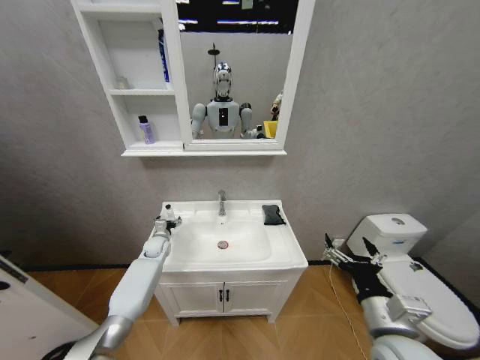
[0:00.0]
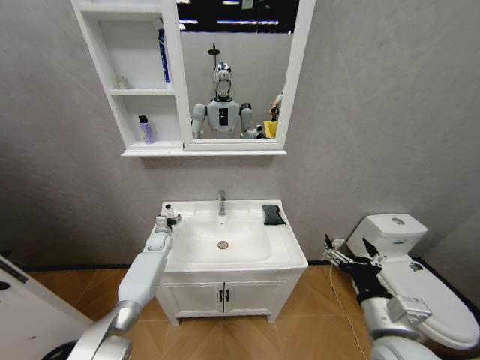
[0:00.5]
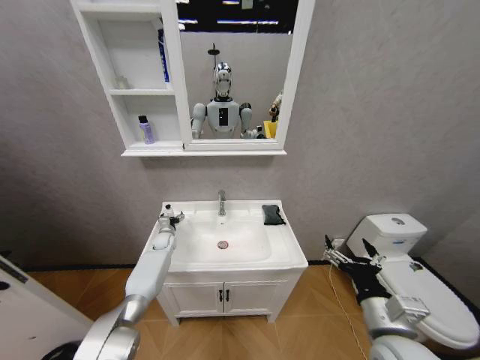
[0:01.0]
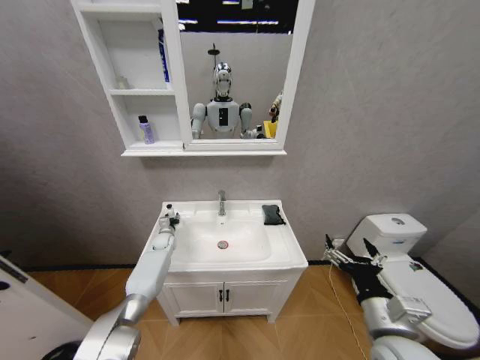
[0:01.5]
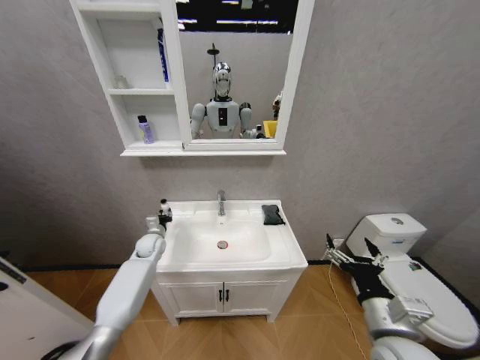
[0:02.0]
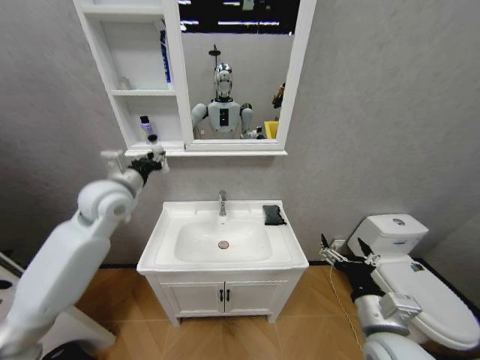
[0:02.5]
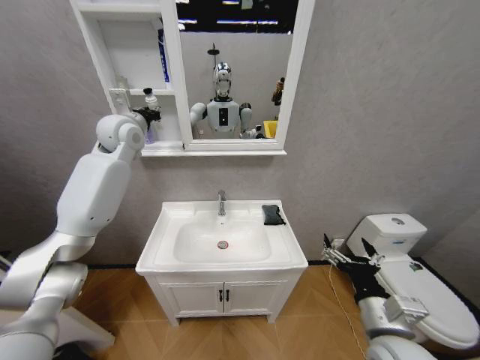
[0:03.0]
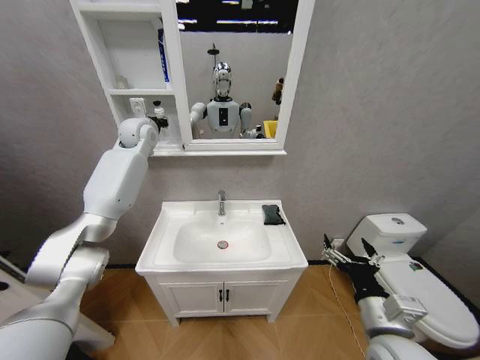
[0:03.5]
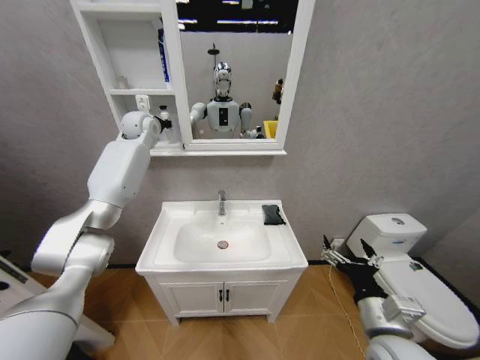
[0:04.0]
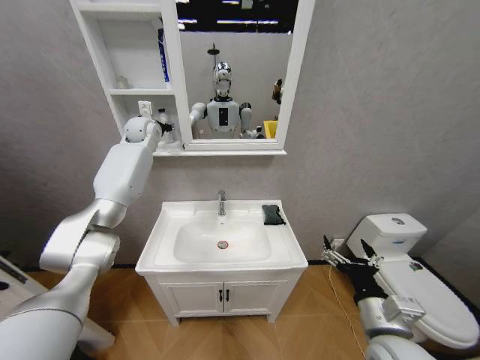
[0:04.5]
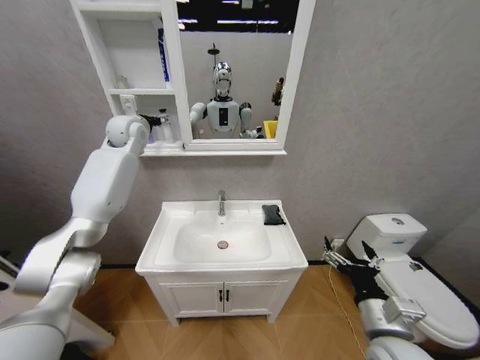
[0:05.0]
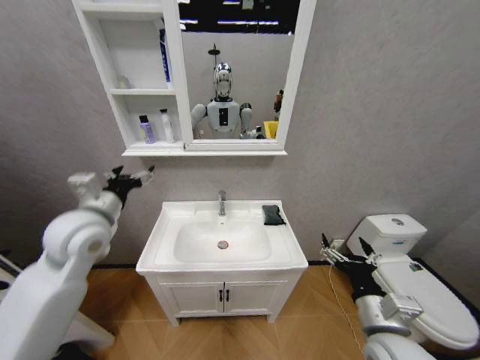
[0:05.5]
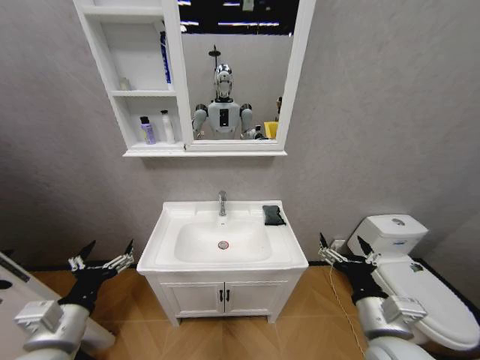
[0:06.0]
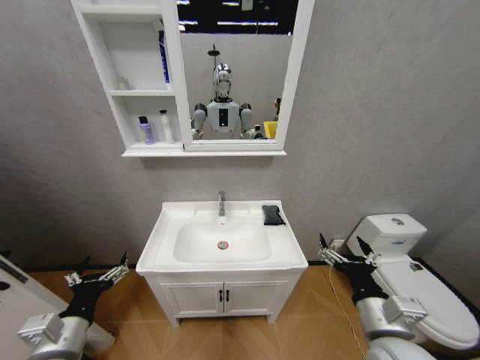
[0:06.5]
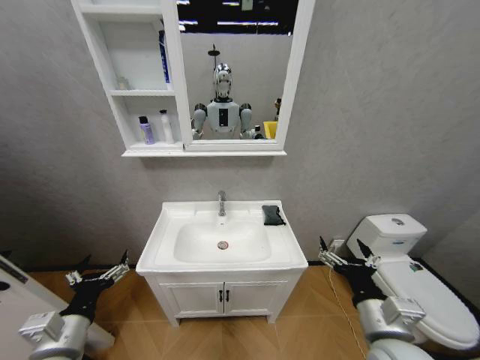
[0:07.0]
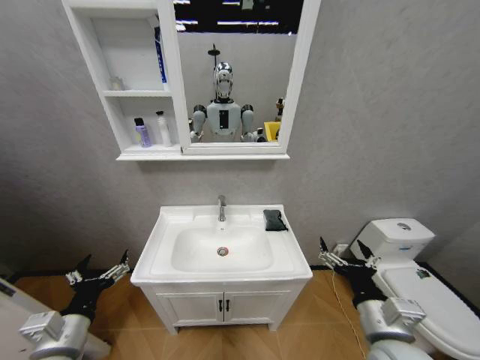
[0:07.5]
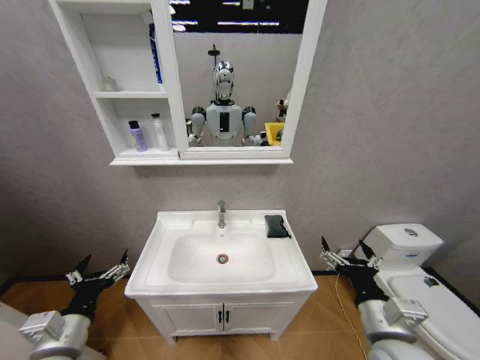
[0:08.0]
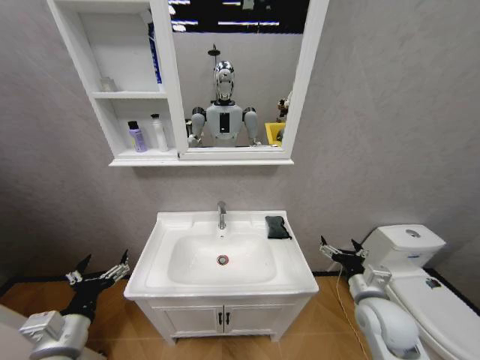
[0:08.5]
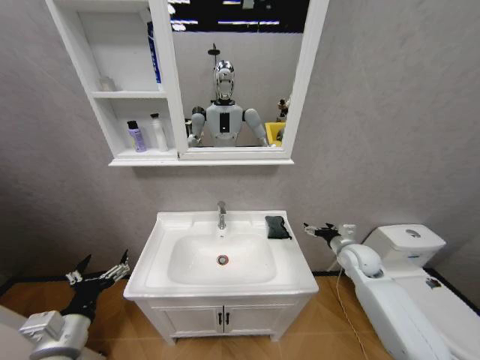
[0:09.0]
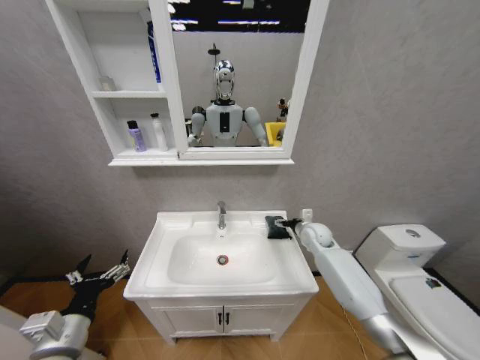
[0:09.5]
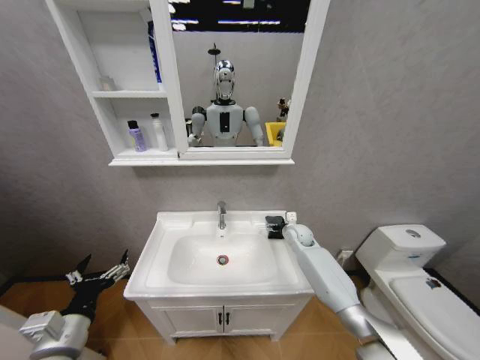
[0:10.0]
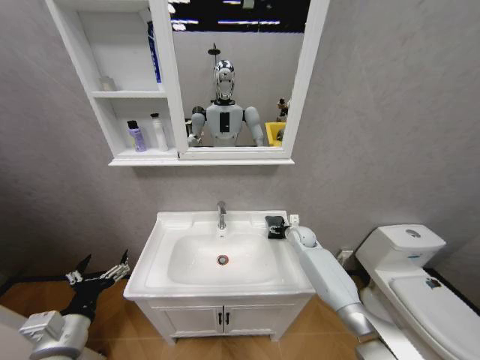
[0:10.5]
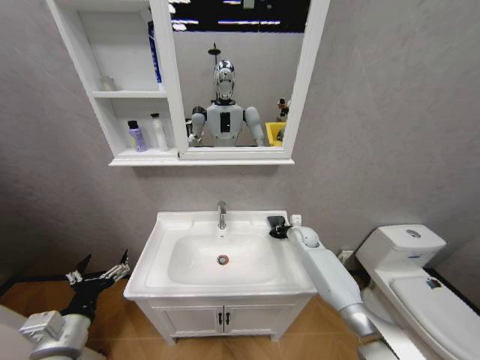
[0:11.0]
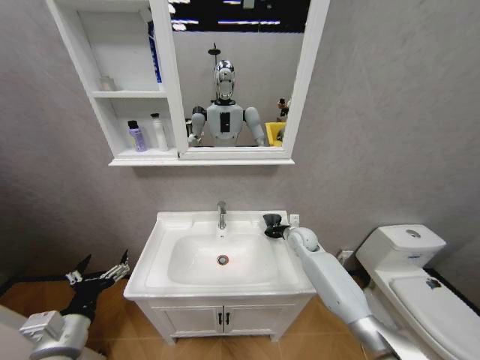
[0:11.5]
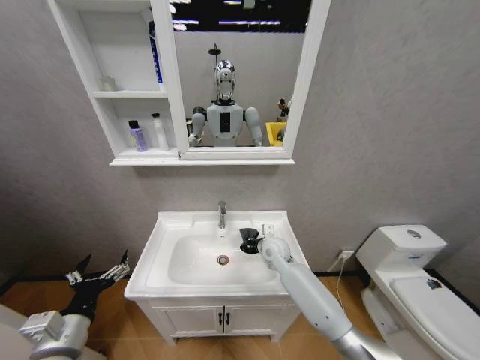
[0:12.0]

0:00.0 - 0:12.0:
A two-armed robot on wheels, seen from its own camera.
Task of the whole recording: Move facial cleanser and shampoo from washbasin to cabinet, then wipe washbasin with towel.
0:00.0 - 0:02.0: The left gripper closes its fingers.
0:02.0 - 0:04.0: The left gripper shifts roughly 40 cm upward.
0:04.0 - 0:06.0: The left gripper heads backward and downward, covering approximately 60 cm, and opens up.
0:08.0 - 0:10.0: The right gripper heads forward, covering approximately 40 cm.
0:10.0 - 0:12.0: The right gripper moves to the left and backward, roughly 15 cm, and closes.

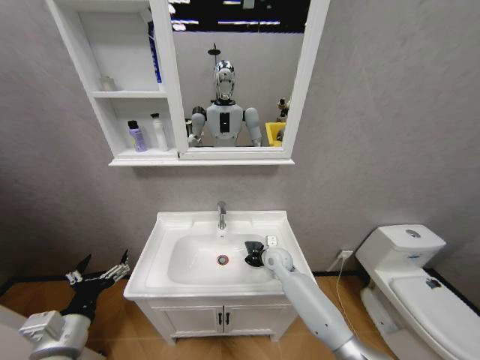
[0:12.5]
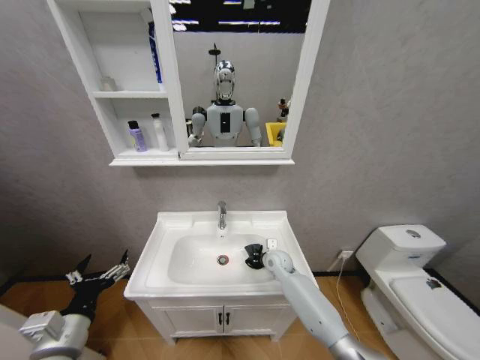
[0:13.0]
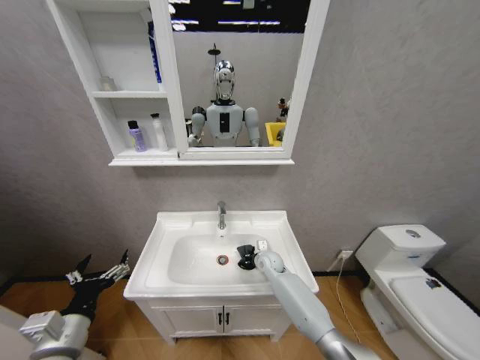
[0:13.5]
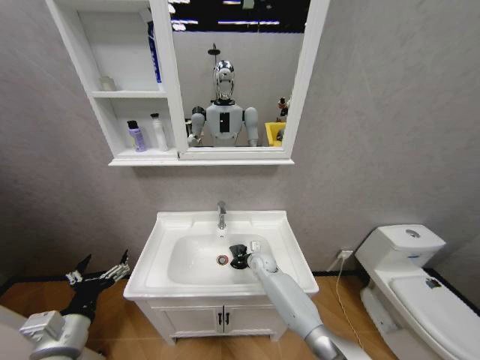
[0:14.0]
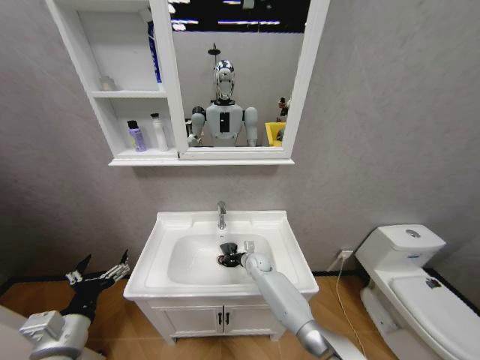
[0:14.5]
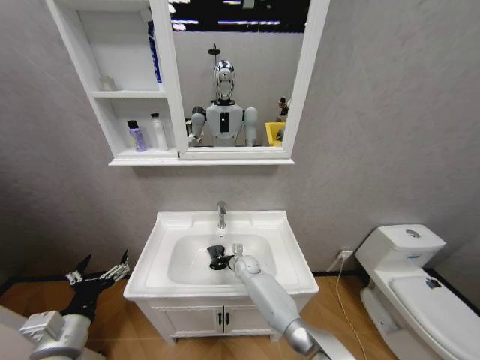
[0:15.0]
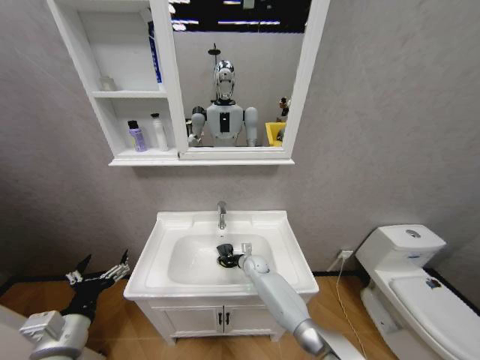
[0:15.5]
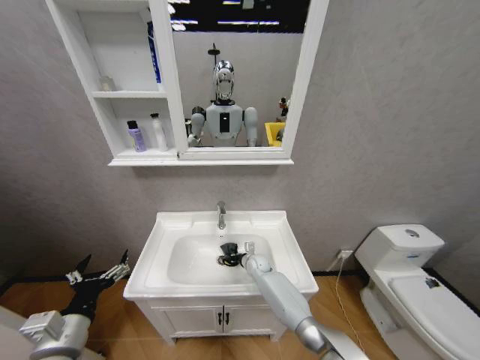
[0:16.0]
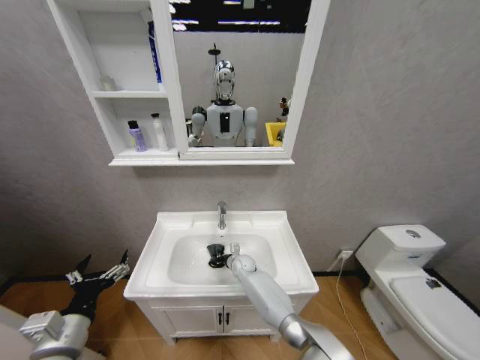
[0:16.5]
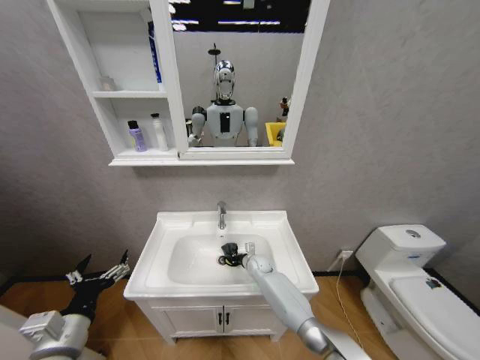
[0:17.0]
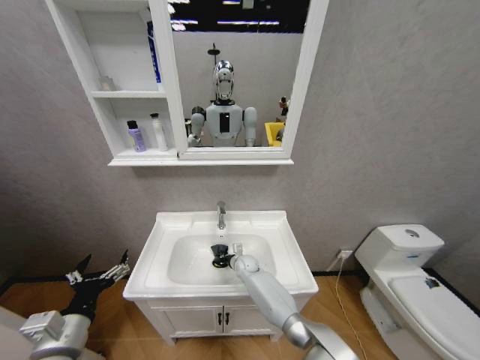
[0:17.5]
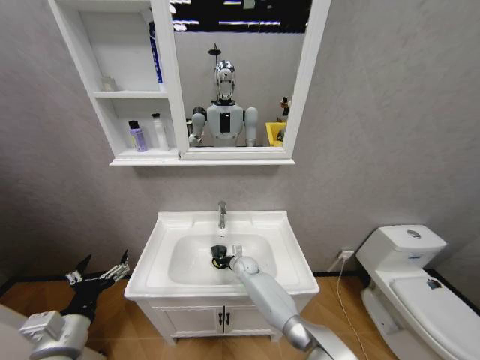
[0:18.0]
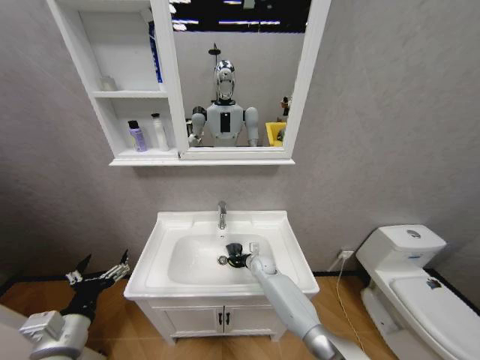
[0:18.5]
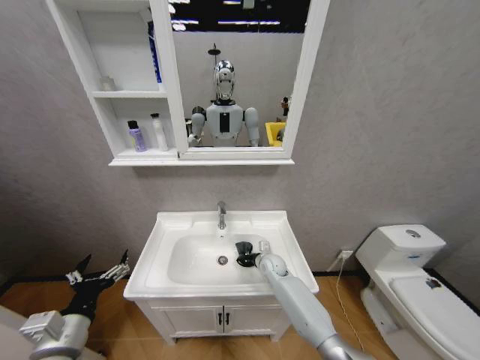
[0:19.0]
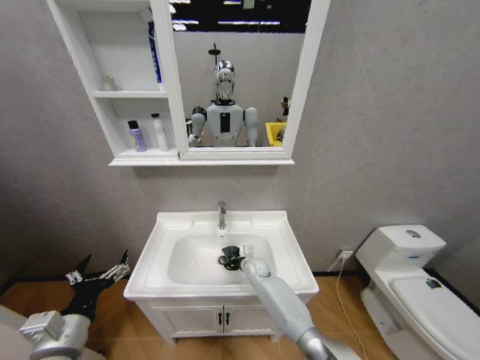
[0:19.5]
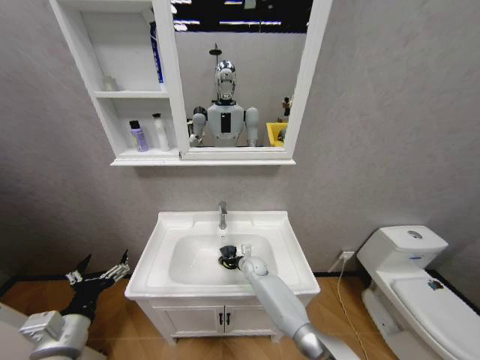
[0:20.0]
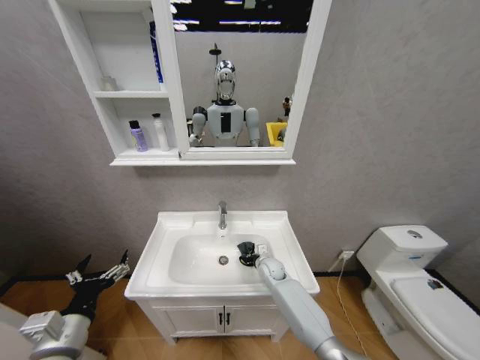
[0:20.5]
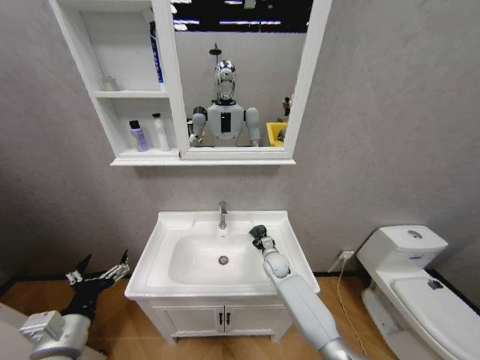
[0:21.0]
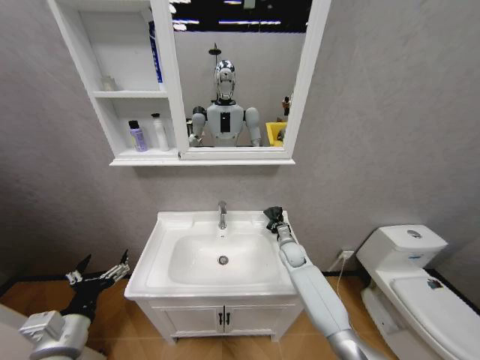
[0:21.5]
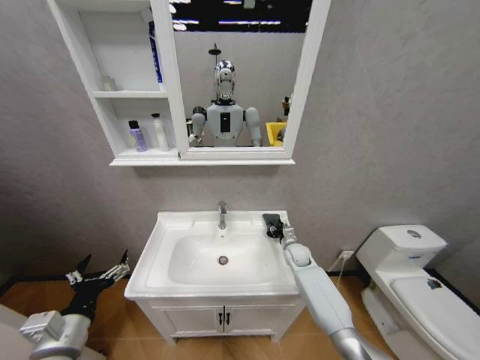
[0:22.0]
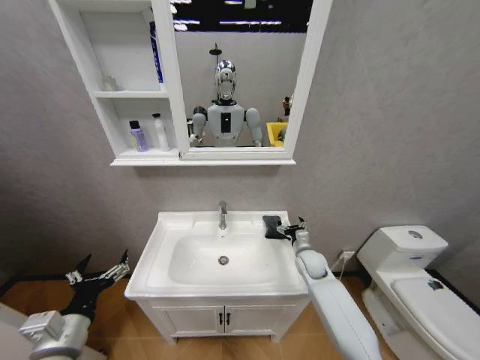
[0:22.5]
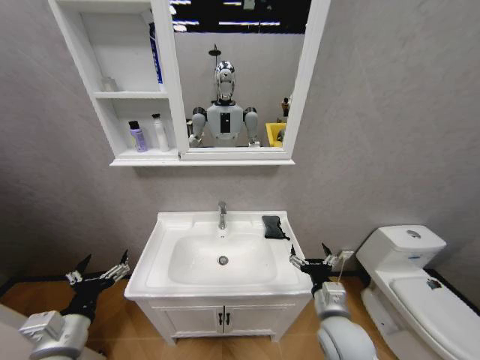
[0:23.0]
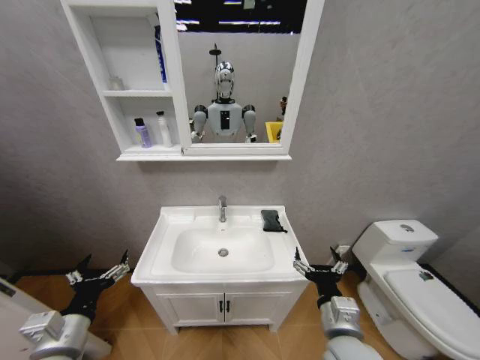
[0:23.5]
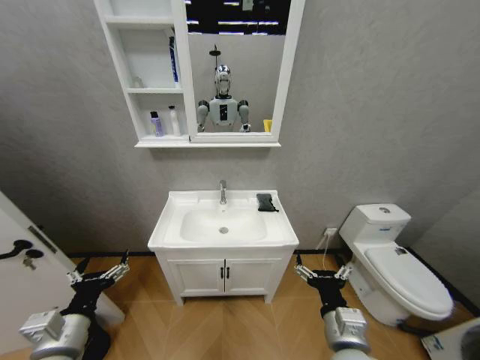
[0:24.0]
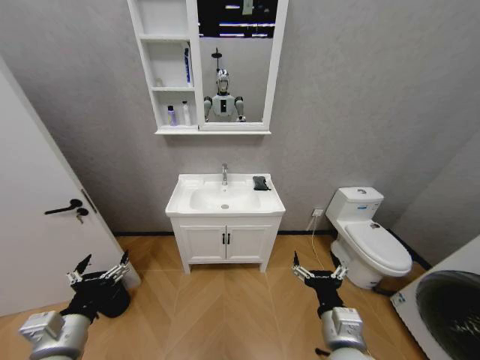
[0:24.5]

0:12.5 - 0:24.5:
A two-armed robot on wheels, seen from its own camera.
Task of the whole recording: Move facial cleanser and shampoo from washbasin to cabinet, then wipe washbasin with towel.
0:12.5 - 0:14.5: The right gripper is displaced downward and to the left by some 10 cm.
0:14.5 - 0:16.5: The right gripper moves left and right over approximately 5 cm, changing direction 2 times.
0:16.5 - 0:18.5: The right gripper swings left and right, approximately 10 cm each way, with 2 reversals.
0:18.5 - 0:20.5: There are only small adjustments of the grippers.
0:20.5 - 0:22.5: The right gripper is displaced to the right and upward by approximately 15 cm, and opens up.
0:22.5 - 0:24.5: The right gripper goes approximately 30 cm backward.

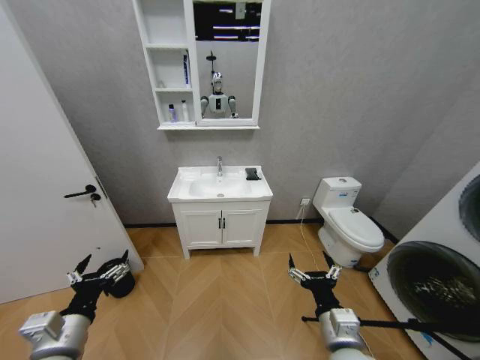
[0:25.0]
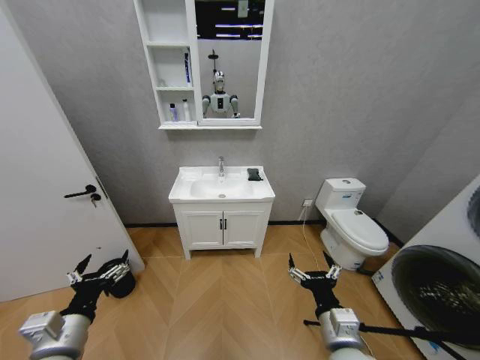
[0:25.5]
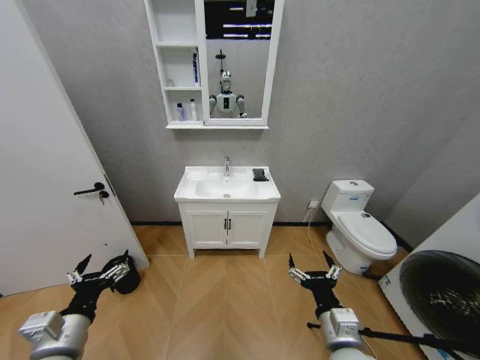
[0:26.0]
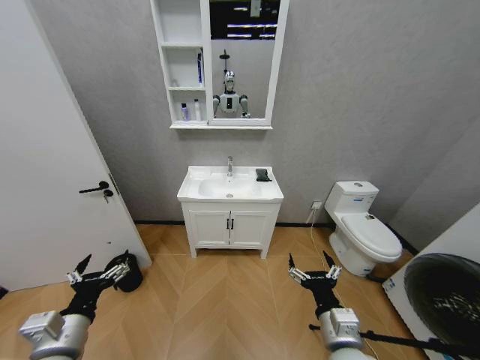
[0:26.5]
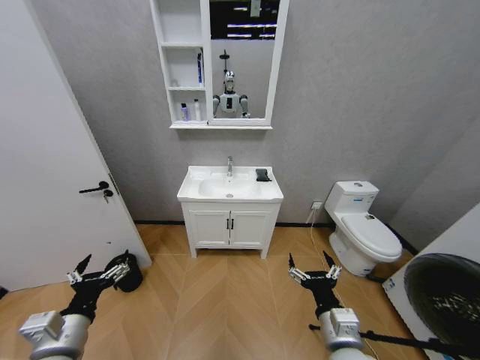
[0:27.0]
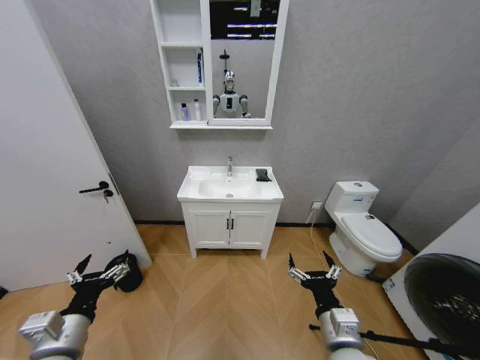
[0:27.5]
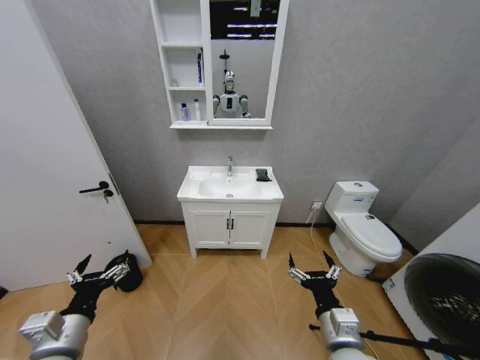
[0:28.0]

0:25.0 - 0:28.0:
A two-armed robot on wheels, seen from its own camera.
Task of the whole recording: Move facial cleanser and shampoo from washbasin to cabinet, then wipe washbasin with towel.
0:25.0 - 0:28.0: Both grippers stay put.
